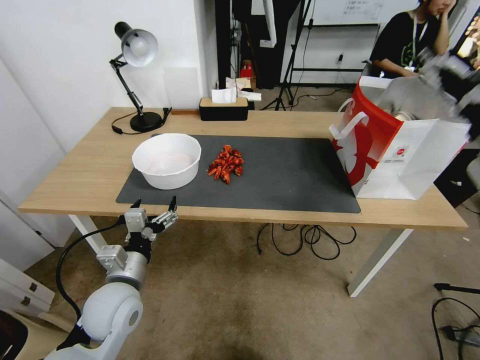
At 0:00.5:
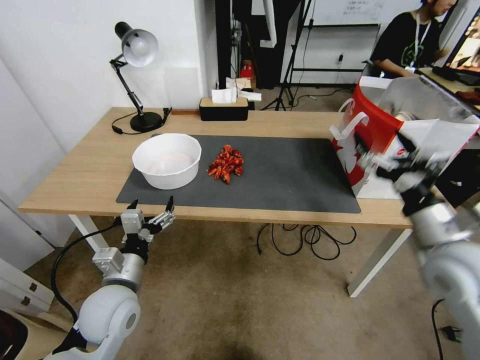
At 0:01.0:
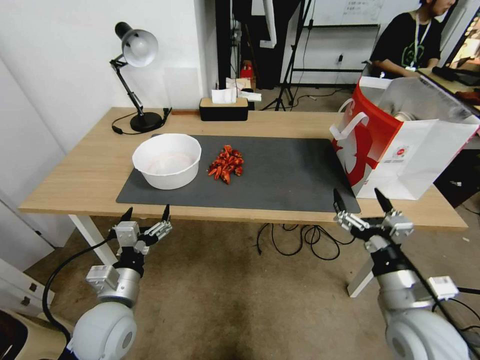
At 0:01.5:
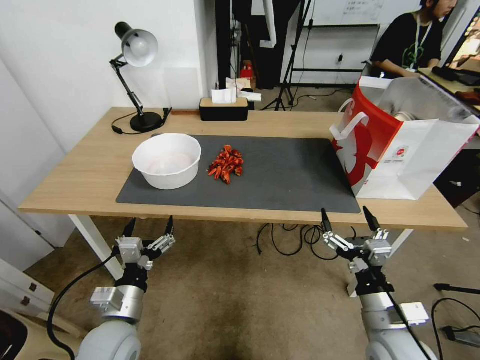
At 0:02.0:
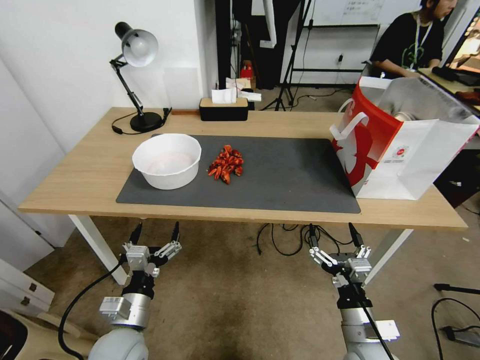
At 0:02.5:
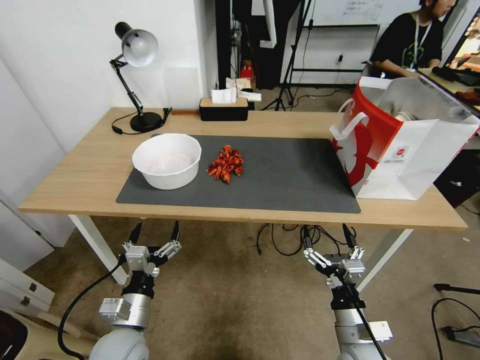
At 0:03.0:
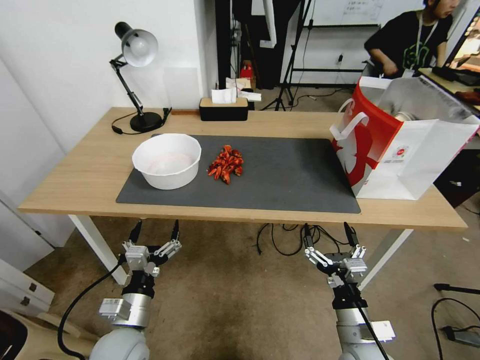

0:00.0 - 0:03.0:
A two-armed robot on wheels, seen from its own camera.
0:00.0 - 0:01.5: The left gripper heads backward, covering roughly 5 cm; the right gripper heads downward, backward and to the left, covering some 35 cm.
0:01.5 - 0:03.0: The right gripper goes some 5 cm downward.
